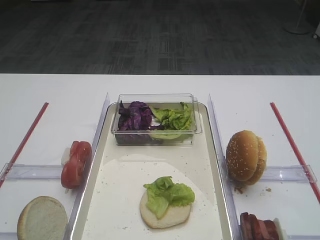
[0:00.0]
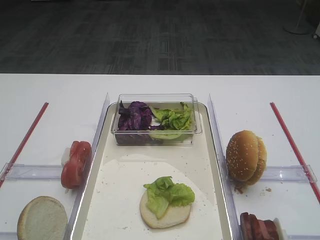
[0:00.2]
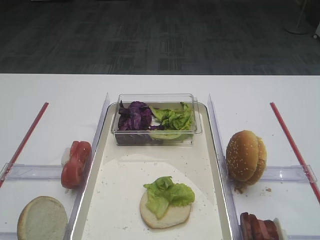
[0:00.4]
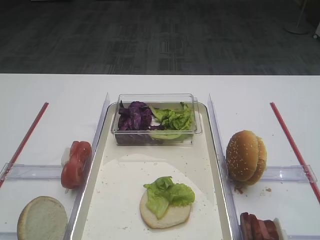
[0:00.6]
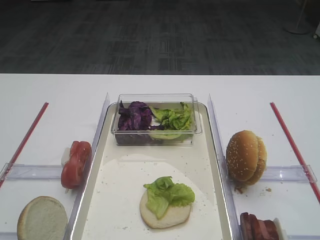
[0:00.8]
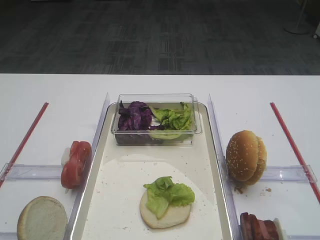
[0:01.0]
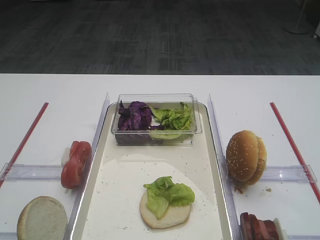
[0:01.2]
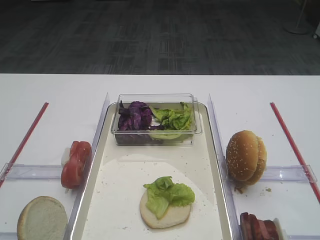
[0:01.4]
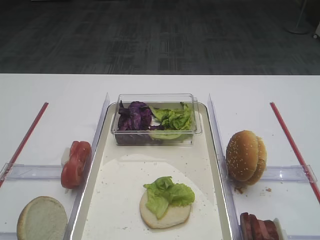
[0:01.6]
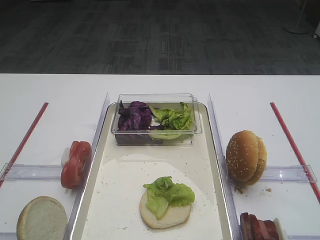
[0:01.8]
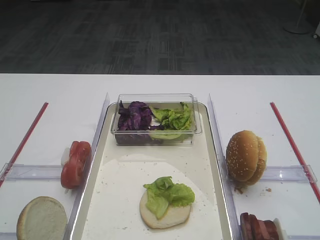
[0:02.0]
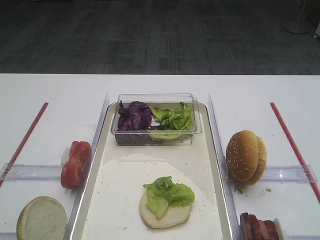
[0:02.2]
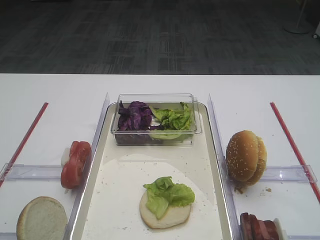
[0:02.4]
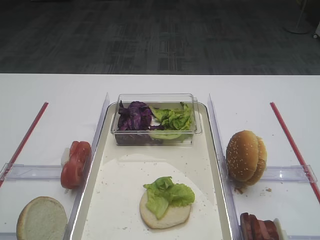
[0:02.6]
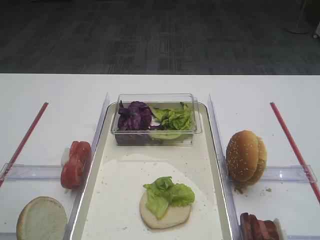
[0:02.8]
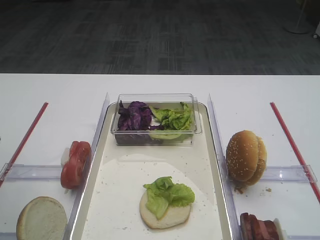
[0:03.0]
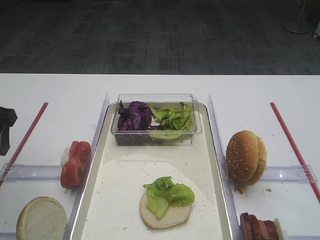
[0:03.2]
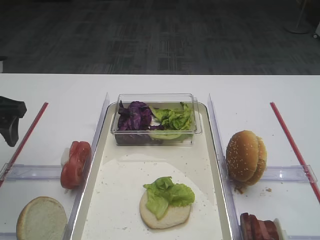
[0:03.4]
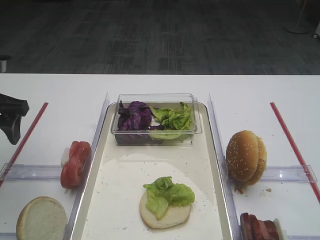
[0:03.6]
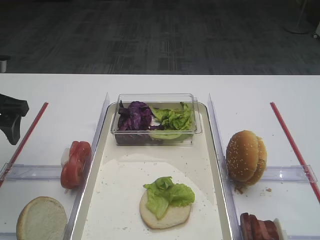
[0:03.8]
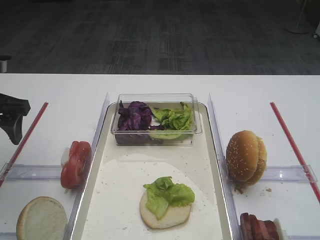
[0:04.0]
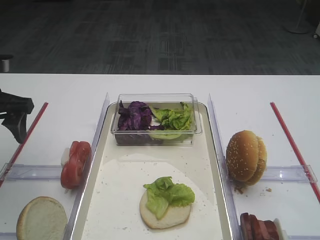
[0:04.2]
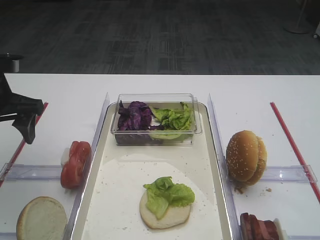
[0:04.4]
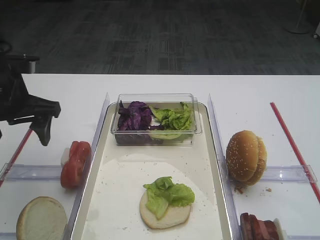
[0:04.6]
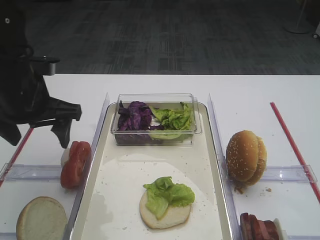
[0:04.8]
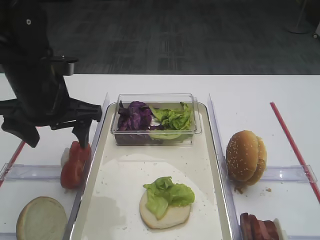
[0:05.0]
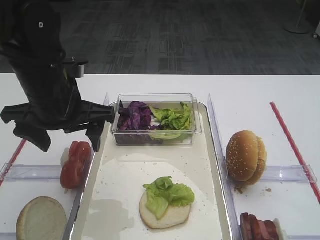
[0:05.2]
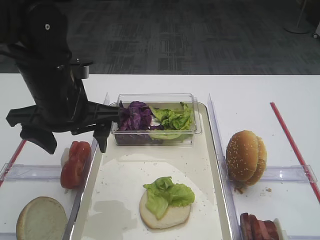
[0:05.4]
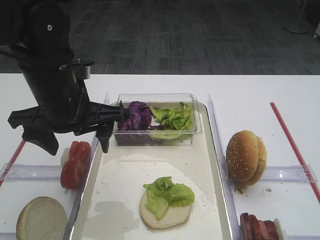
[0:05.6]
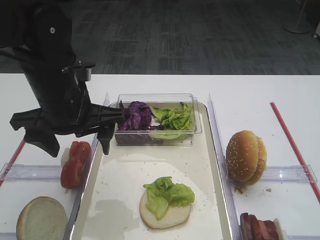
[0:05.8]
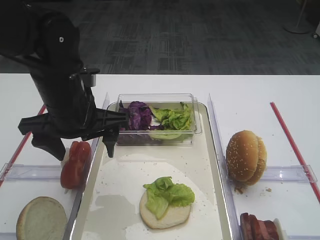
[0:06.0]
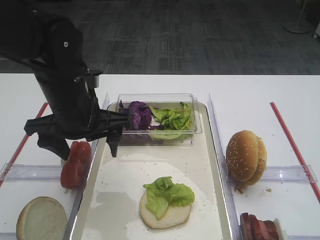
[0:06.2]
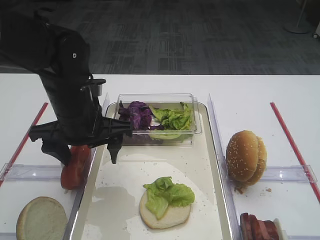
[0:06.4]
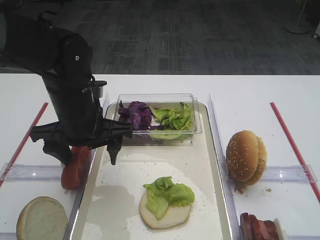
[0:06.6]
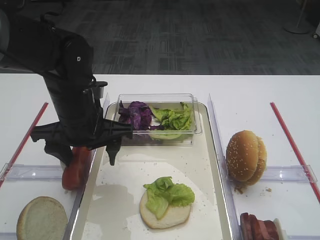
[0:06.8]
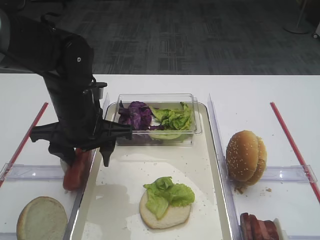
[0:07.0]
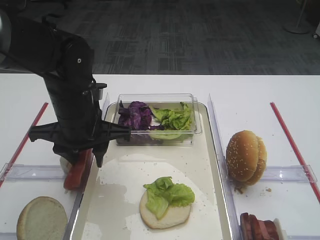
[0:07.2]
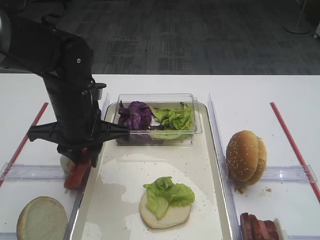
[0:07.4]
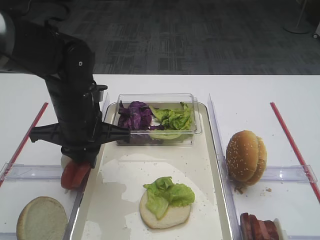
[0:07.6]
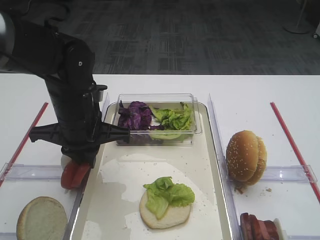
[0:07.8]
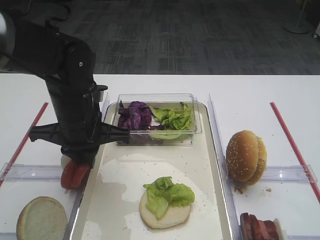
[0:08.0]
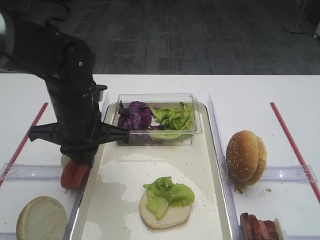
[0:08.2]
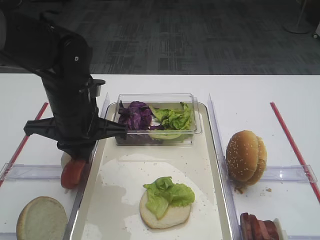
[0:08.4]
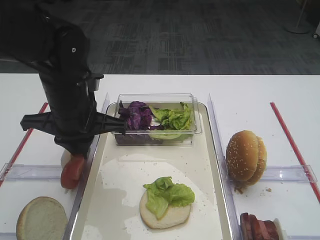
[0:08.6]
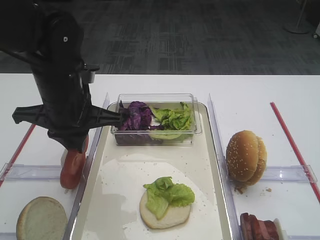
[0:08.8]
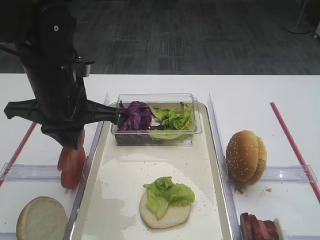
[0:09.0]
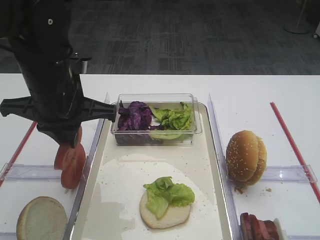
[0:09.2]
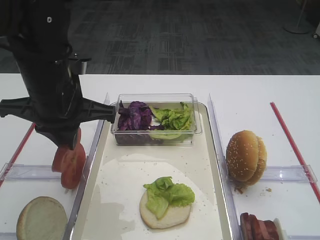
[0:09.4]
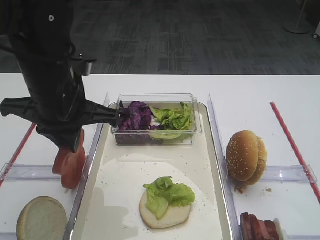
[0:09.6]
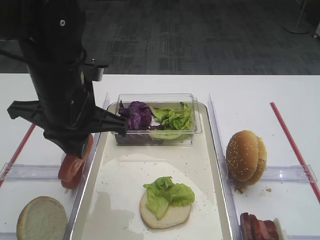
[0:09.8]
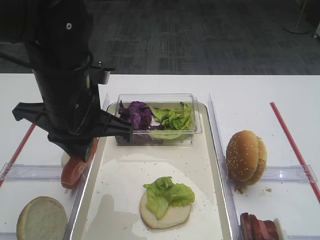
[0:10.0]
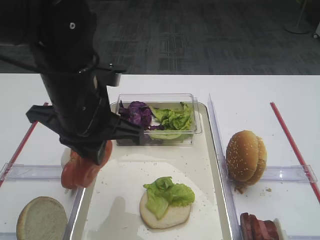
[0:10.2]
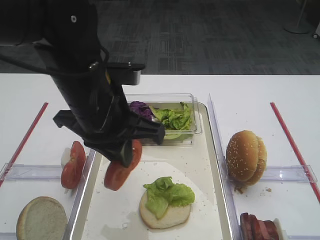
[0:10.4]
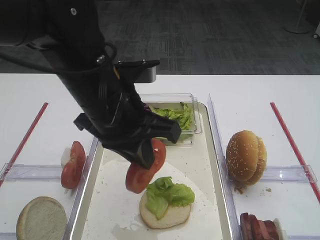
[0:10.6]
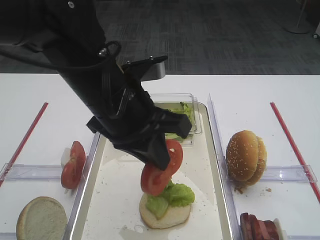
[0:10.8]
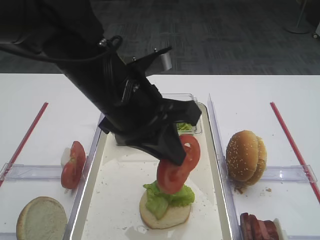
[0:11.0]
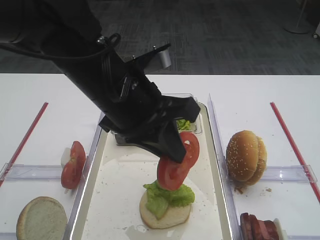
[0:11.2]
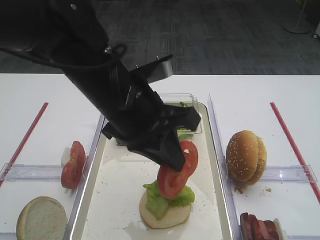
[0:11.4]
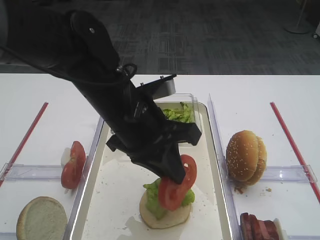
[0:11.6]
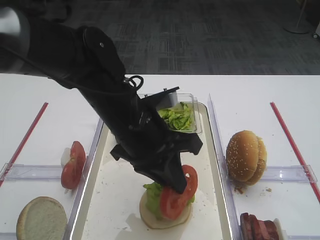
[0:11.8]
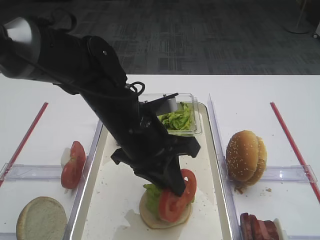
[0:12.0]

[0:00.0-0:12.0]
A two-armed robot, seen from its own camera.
Step, 0:00.0 to 0:09.0: Pick up the tomato slice with the left gripper.
0:01.6 to 0:03.0: The left gripper is displaced forward by some 20 cm.
0:03.0 to 0:04.4: The left gripper heads forward, covering some 10 cm.
0:04.4 to 0:06.0: The left gripper is displaced to the right by roughly 15 cm.
0:06.0 to 0:07.6: The left gripper closes.
0:07.6 to 0:09.0: The left gripper is displaced upward by roughly 5 cm.
0:09.0 to 0:10.4: The left gripper is displaced to the right by roughly 5 cm.
0:10.4 to 0:12.0: The left gripper is displaced downward by roughly 5 cm.

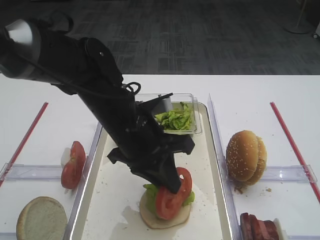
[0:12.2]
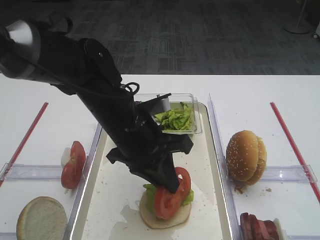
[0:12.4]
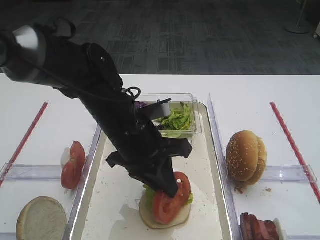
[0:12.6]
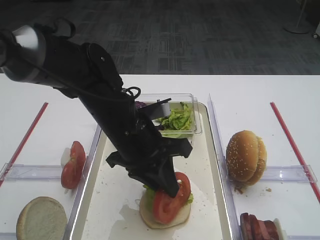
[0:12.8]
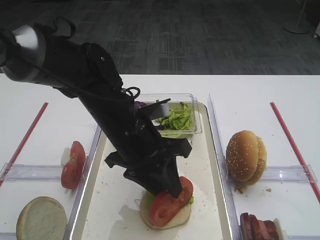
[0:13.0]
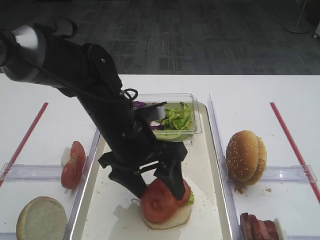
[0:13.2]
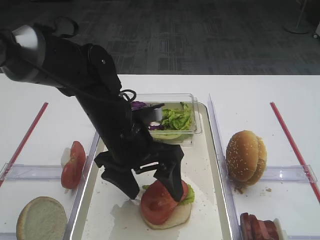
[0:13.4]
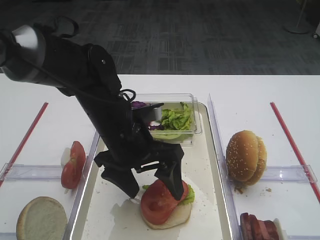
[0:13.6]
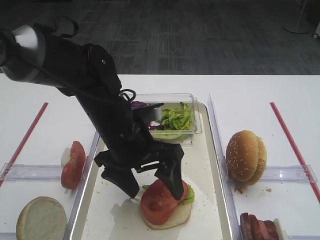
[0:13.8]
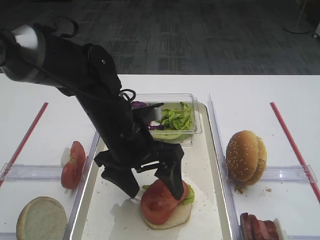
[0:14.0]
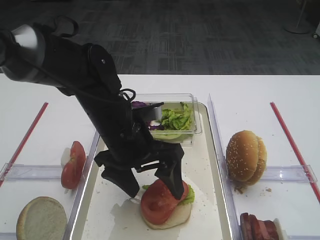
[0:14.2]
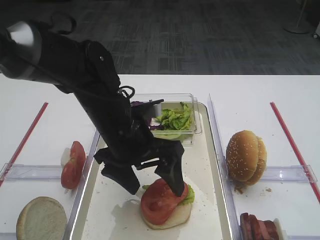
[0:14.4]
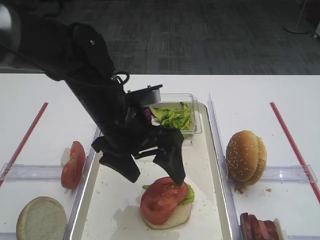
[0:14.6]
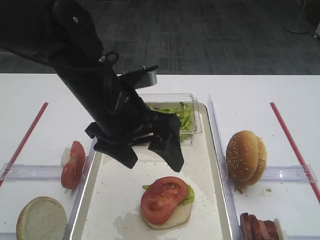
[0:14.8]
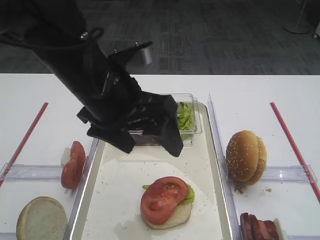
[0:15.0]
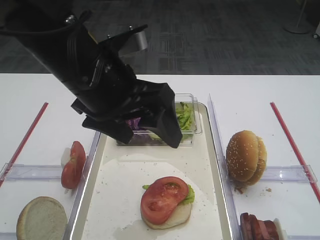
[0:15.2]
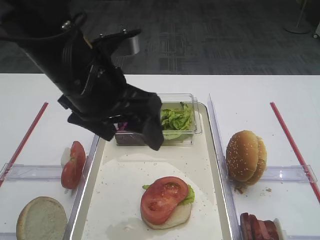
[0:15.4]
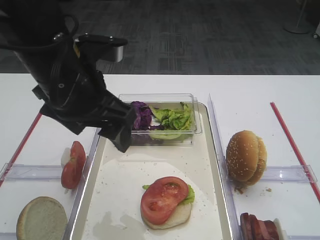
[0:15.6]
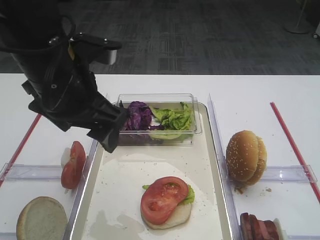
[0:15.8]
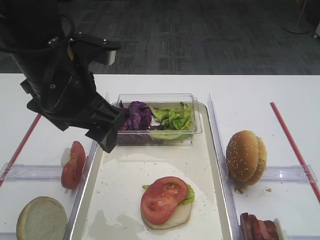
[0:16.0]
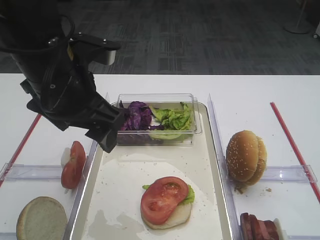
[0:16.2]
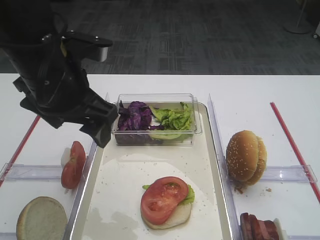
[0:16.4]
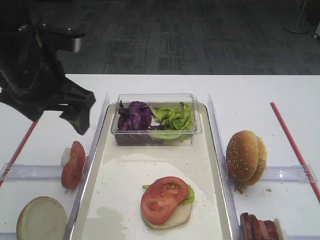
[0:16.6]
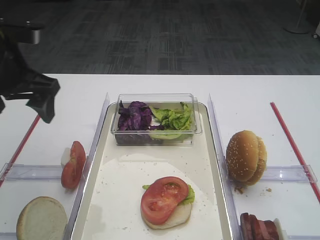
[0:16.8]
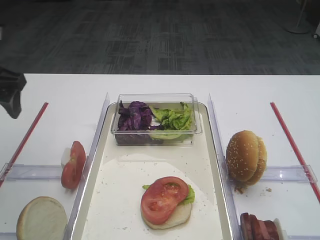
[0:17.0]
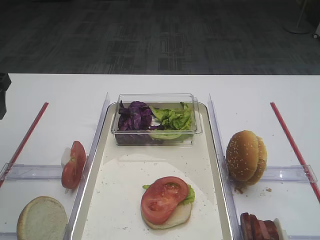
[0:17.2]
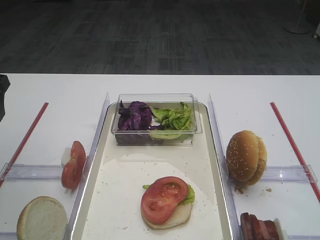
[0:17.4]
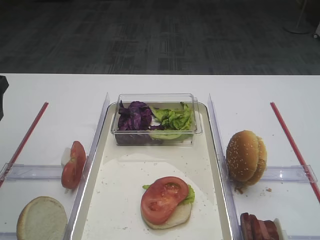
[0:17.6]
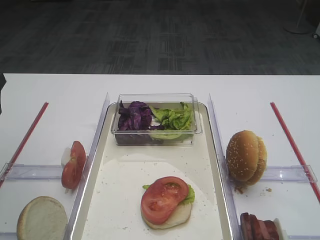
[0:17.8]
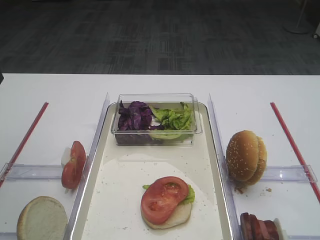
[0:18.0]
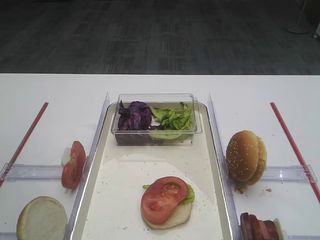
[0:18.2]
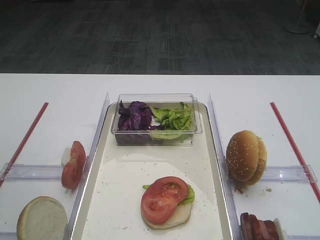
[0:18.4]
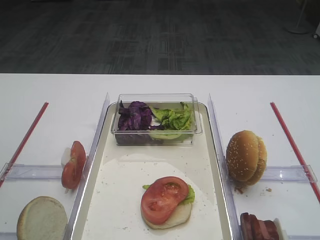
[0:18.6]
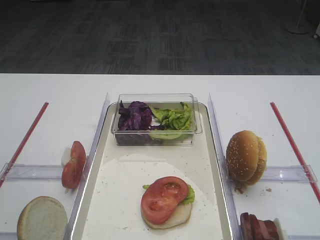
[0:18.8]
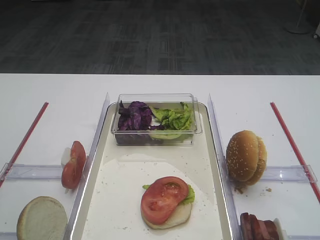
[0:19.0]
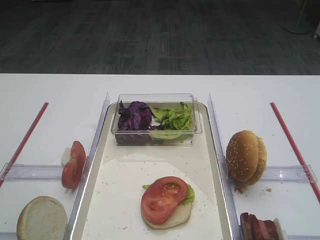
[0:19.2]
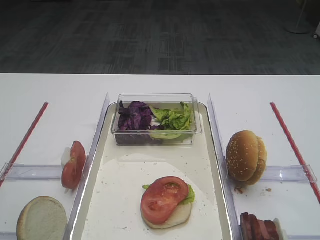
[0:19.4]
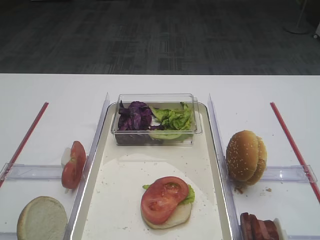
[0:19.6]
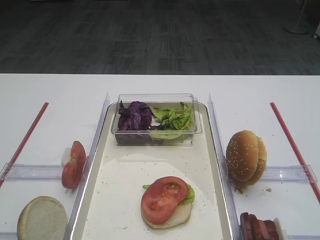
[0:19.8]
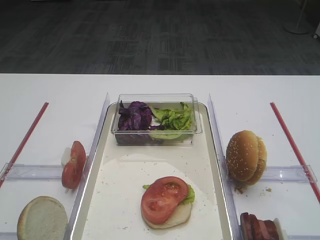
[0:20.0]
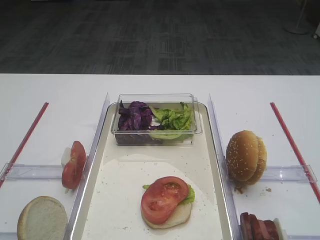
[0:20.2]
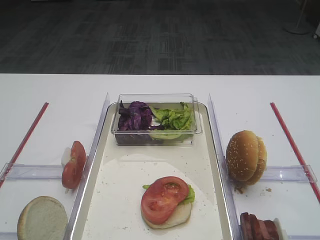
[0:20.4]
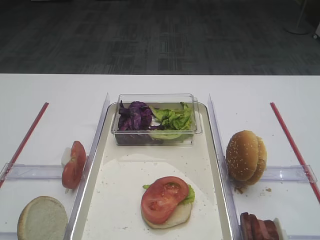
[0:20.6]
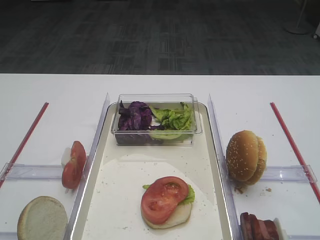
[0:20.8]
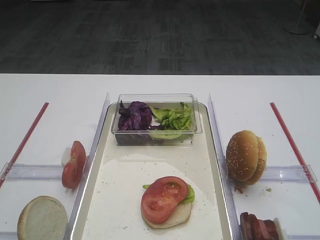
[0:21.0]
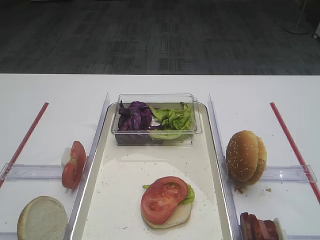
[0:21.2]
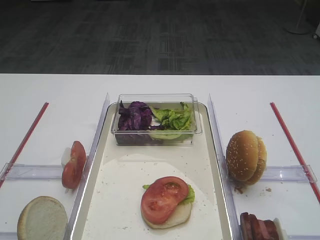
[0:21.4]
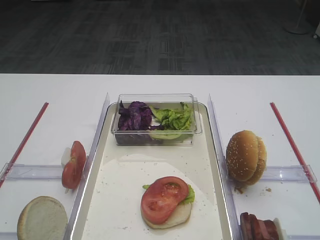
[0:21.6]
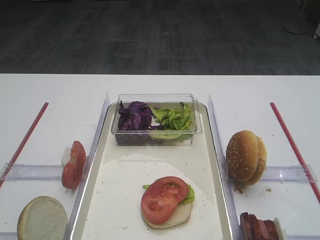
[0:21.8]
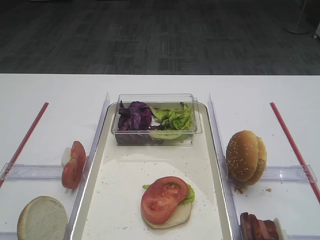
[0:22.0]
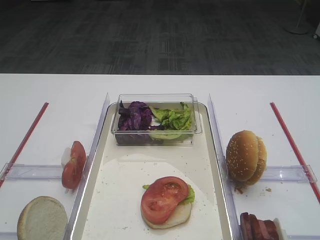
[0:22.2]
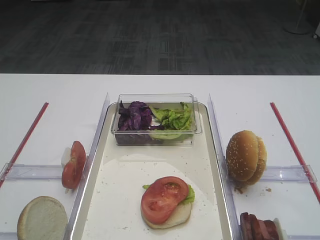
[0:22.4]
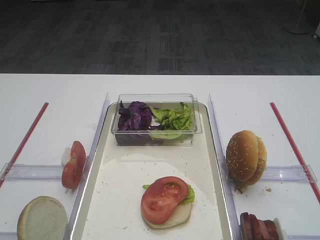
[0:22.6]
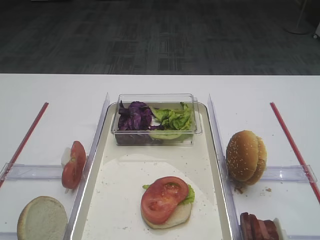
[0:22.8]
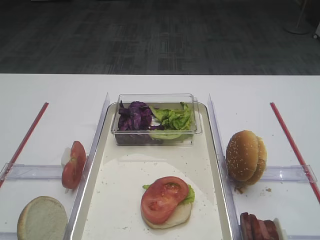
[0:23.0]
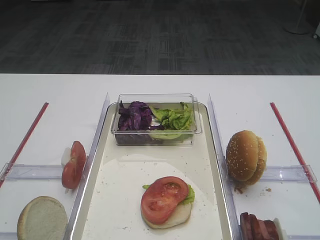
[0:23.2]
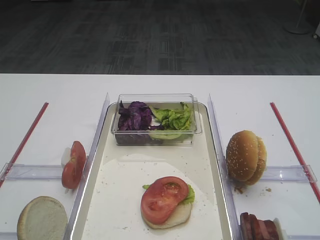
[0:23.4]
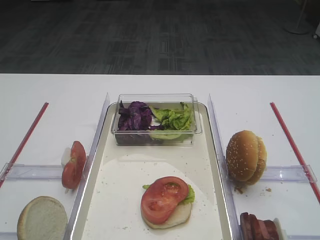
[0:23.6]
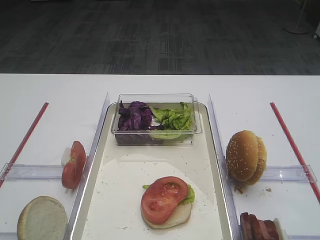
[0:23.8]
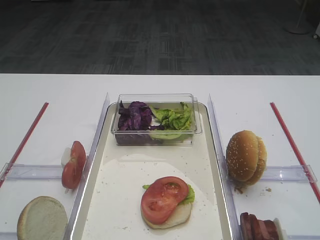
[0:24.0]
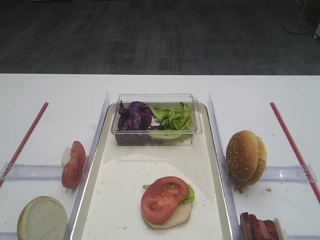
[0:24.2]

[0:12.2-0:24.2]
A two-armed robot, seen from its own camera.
Step, 0:12.2 to 0:16.0: Place the tomato slice on the lettuce leaf with the left gripper.
0:12.2 to 0:13.8: The left gripper opens up.
0:13.8 to 0:15.2: The left gripper heads upward, covering approximately 10 cm.
0:15.2 to 0:16.6: The left gripper goes some 10 cm to the left.
0:16.6 to 0:18.2: The left gripper heads to the left, covering approximately 15 cm.
0:21.2 to 0:24.2: Neither gripper changes place.
